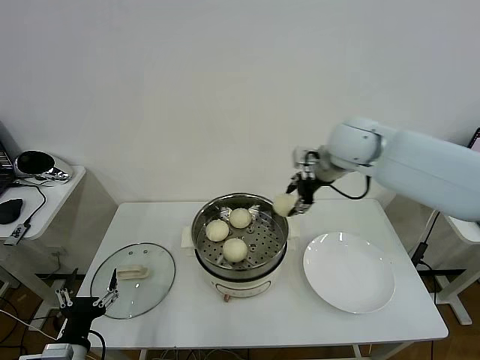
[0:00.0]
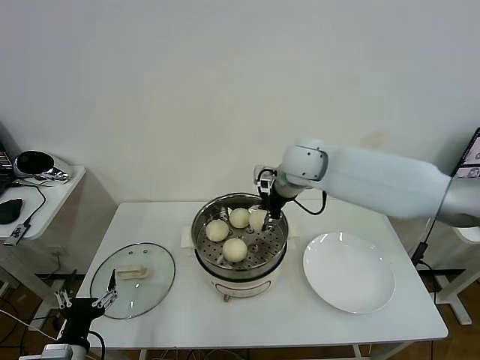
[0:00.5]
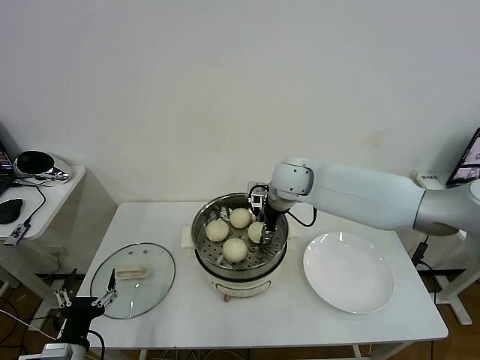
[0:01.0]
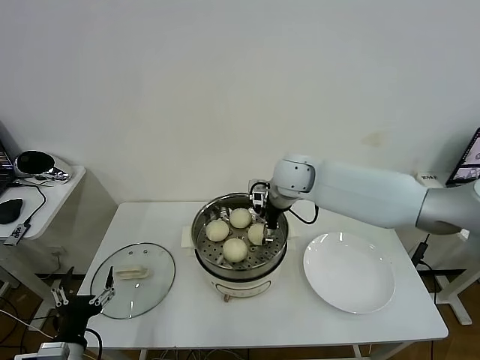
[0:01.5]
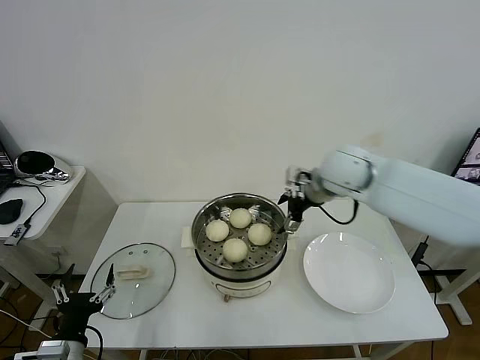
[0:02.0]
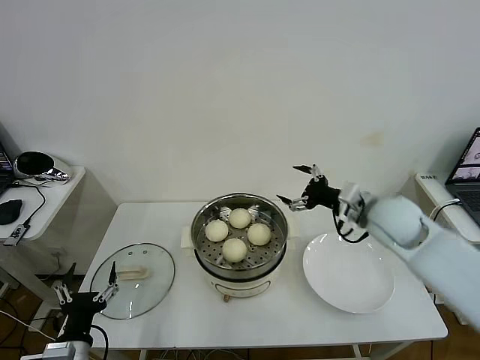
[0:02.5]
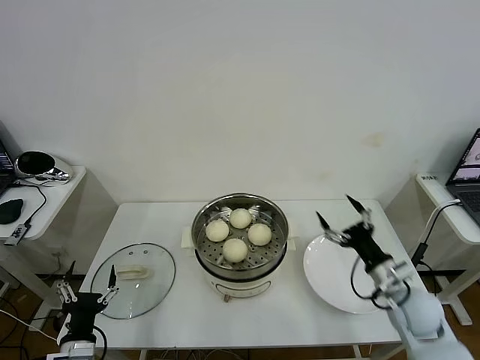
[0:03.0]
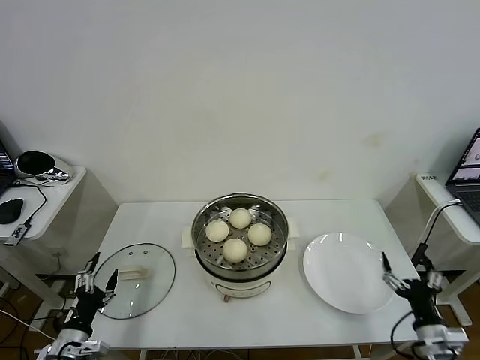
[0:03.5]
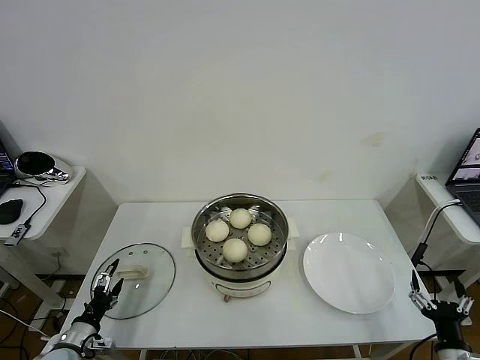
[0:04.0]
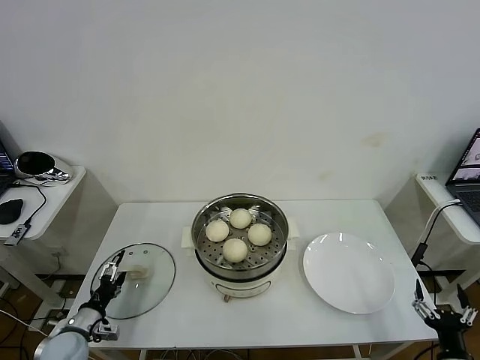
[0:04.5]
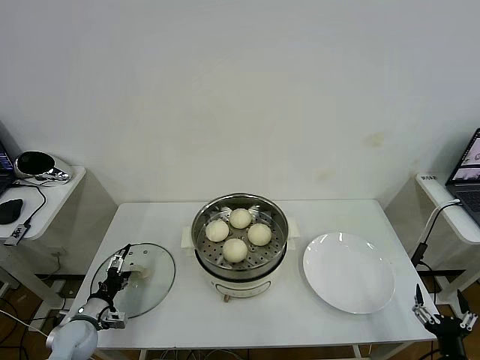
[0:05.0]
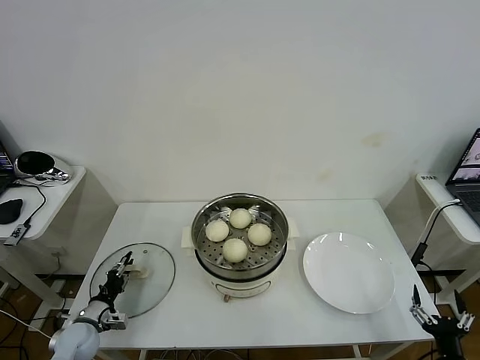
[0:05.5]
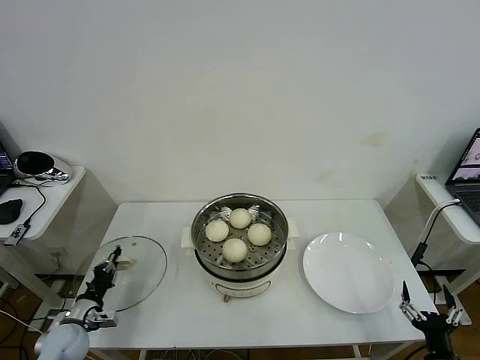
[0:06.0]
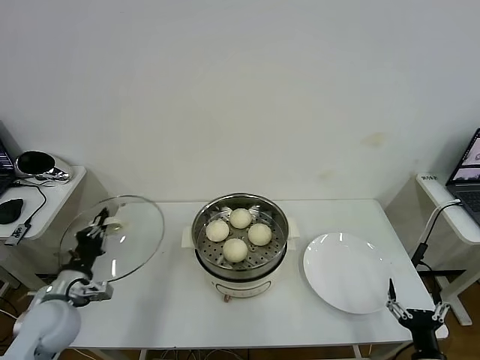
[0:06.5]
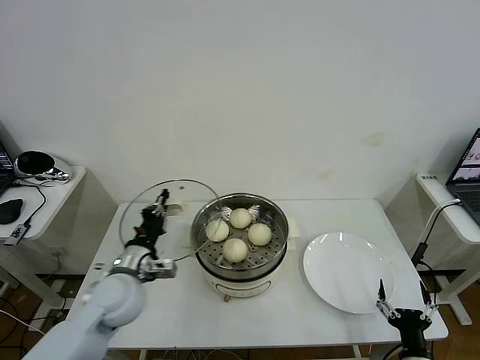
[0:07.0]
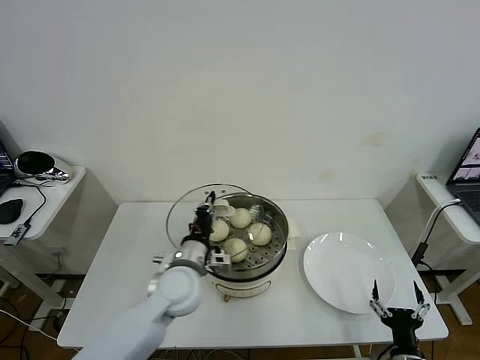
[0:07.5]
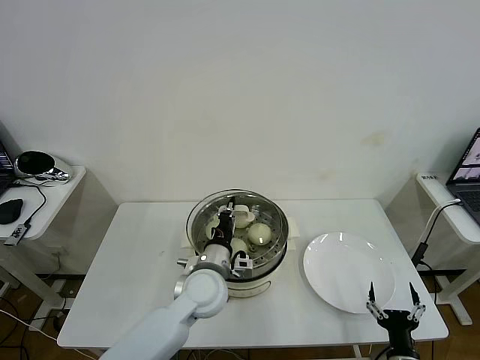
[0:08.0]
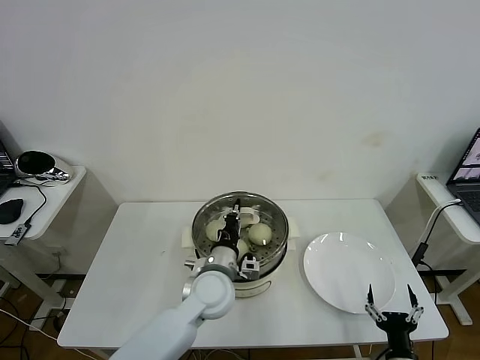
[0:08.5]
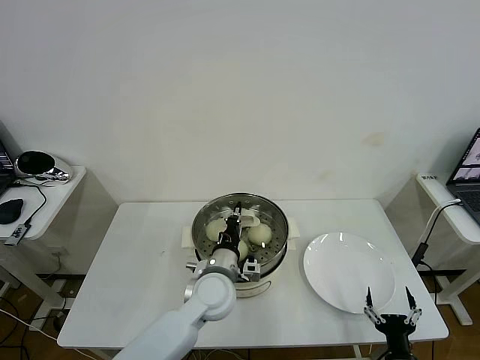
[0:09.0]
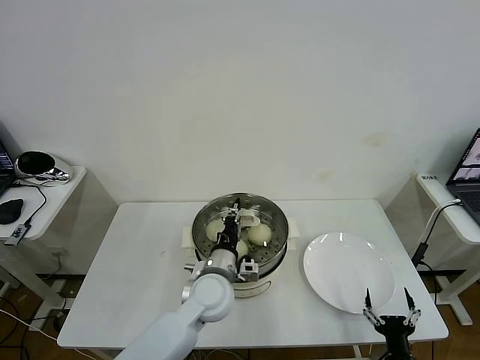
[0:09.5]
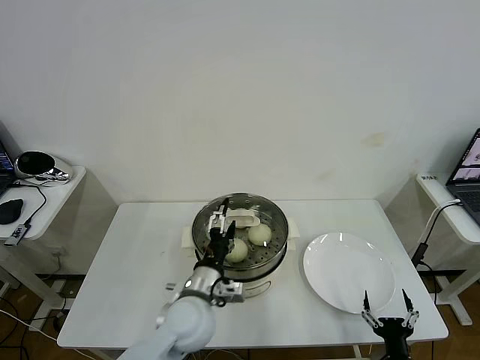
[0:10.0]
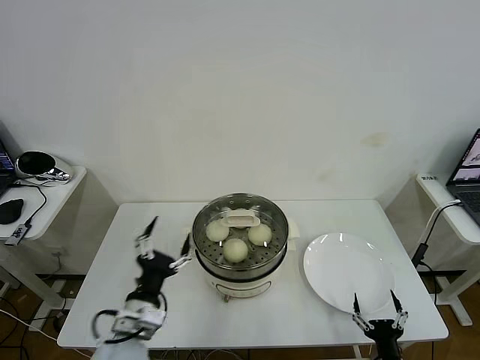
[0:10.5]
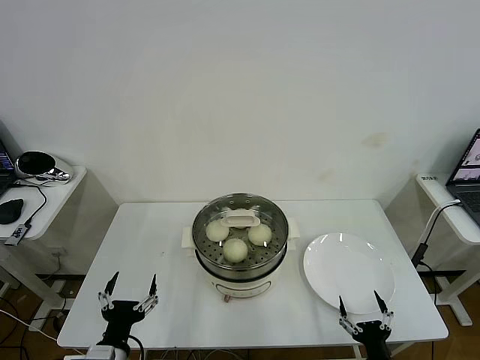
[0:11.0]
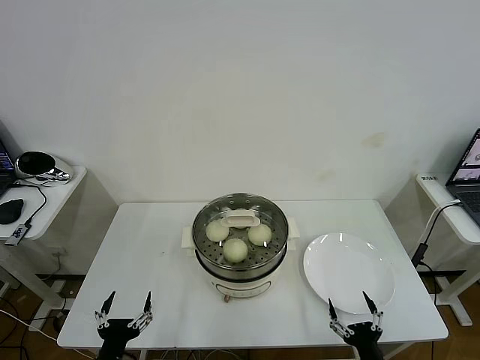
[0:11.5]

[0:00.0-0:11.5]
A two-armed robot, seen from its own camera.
Task of the whole recording: take steamed baozi put them in steamer then cover it.
Step, 0:00.0 to 0:01.5: Place the baozi on the steamer with right gripper.
Step, 0:02.0 to 0:05.5: Grasp the pot lid with left gripper.
Step, 0:06.0 to 0:09.5: Place the pot lid on the steamer with left gripper.
0:00.0 to 0:02.0: The right gripper opens.
0:02.0 to 0:04.0: The left gripper heads downward, to the left and forward, covering roughly 15 cm; the right gripper heads backward, downward and to the right, covering about 50 cm.
0:04.0 to 0:06.0: The left gripper travels forward by about 5 cm, and closes its fingers.
0:06.0 to 0:07.5: The left gripper is displaced to the right and upward by approximately 35 cm, while the right gripper heads to the left, covering about 5 cm.
0:07.5 to 0:09.5: The left gripper is displaced to the right by roughly 5 cm.
0:09.5 to 0:11.5: The left gripper travels backward and to the left by roughly 30 cm, and opens up.
